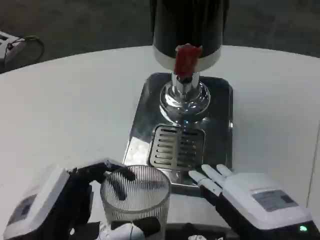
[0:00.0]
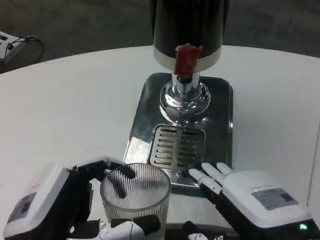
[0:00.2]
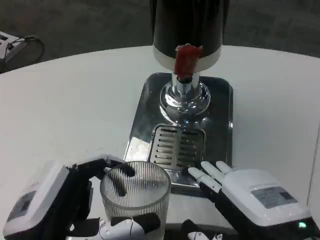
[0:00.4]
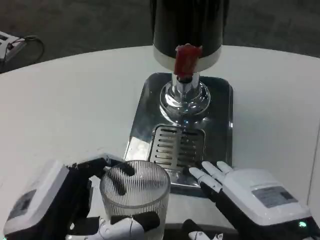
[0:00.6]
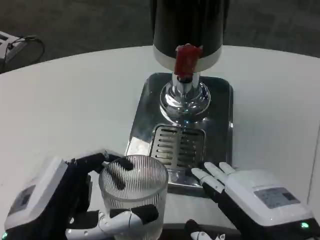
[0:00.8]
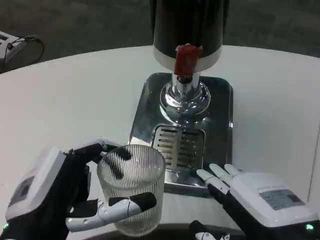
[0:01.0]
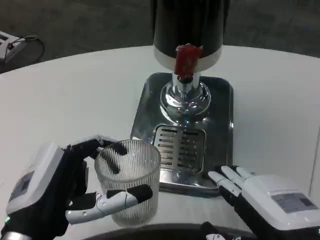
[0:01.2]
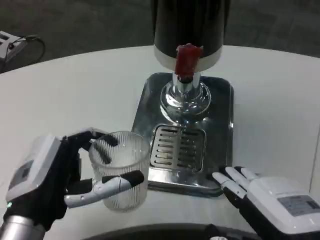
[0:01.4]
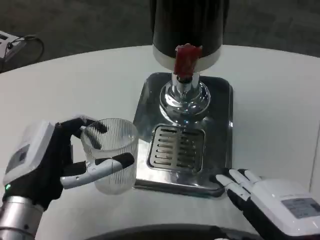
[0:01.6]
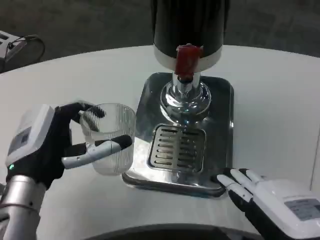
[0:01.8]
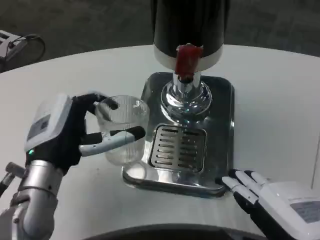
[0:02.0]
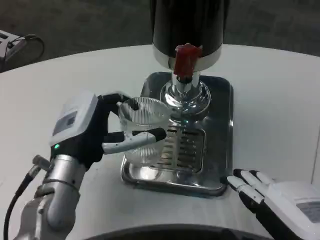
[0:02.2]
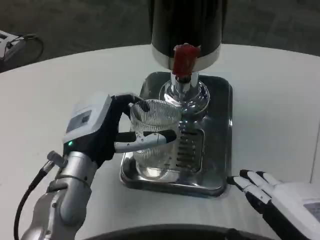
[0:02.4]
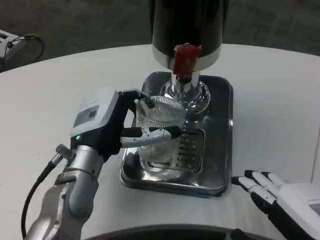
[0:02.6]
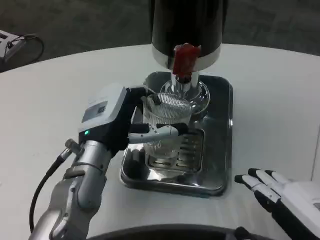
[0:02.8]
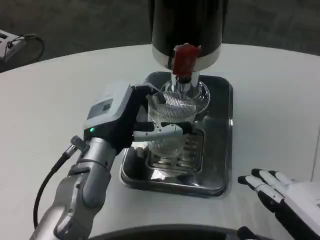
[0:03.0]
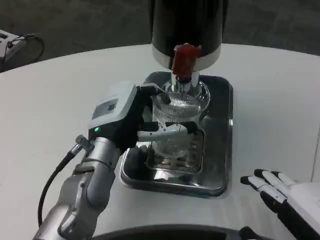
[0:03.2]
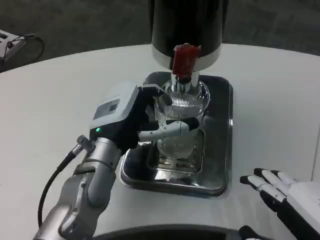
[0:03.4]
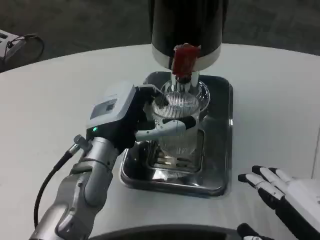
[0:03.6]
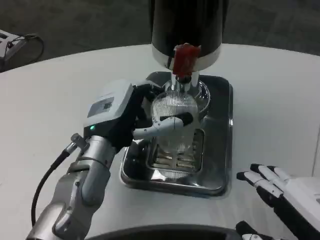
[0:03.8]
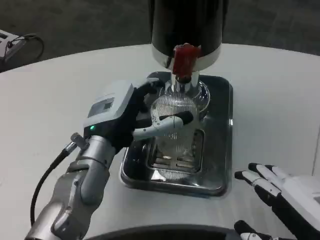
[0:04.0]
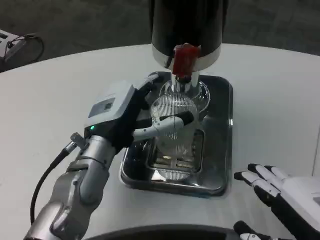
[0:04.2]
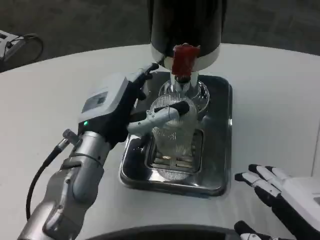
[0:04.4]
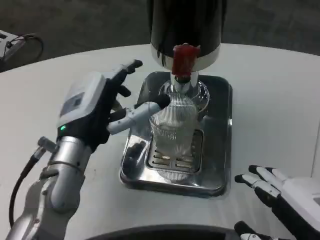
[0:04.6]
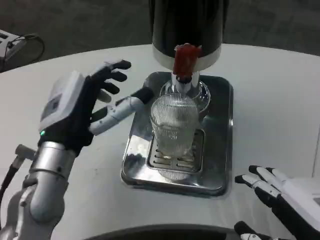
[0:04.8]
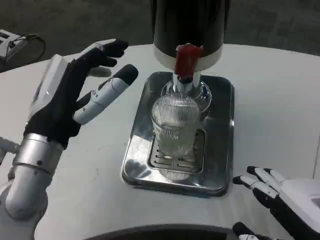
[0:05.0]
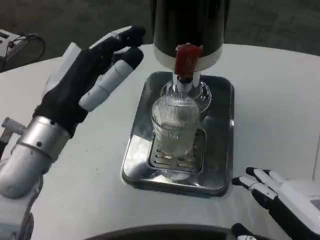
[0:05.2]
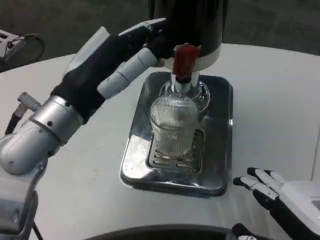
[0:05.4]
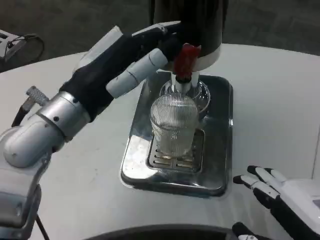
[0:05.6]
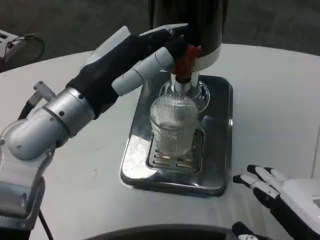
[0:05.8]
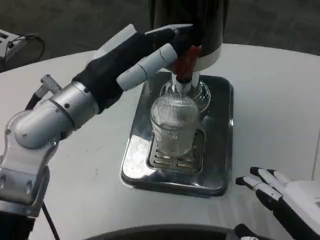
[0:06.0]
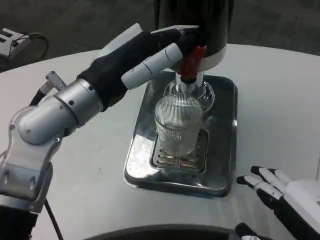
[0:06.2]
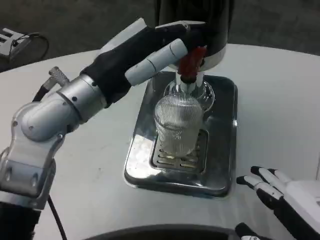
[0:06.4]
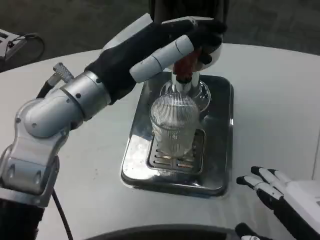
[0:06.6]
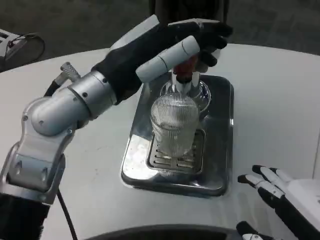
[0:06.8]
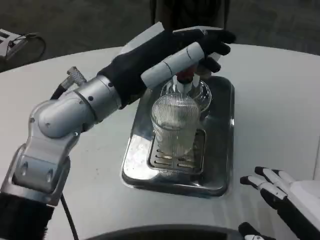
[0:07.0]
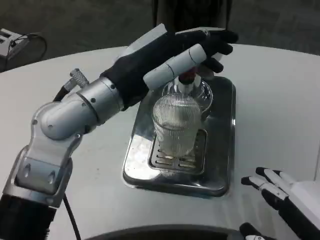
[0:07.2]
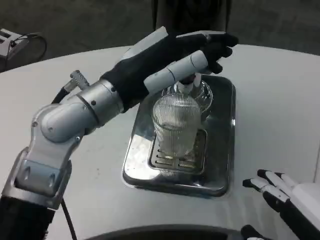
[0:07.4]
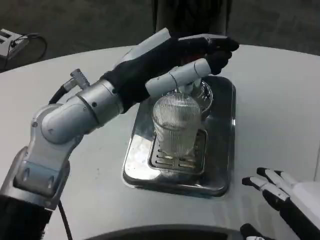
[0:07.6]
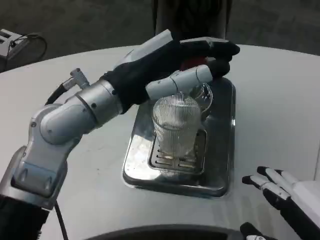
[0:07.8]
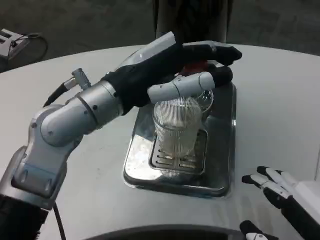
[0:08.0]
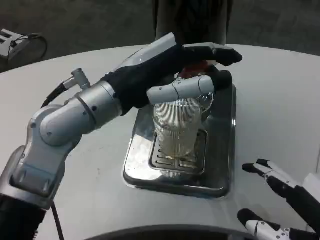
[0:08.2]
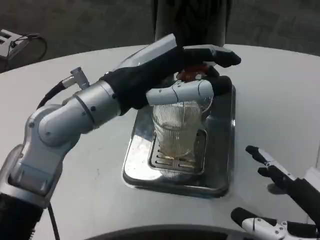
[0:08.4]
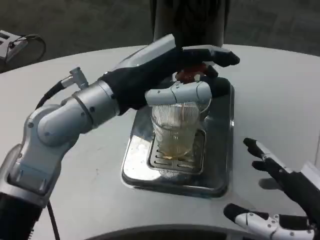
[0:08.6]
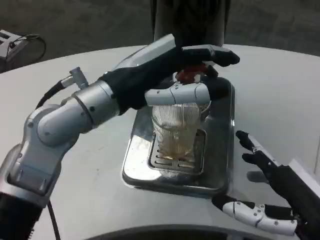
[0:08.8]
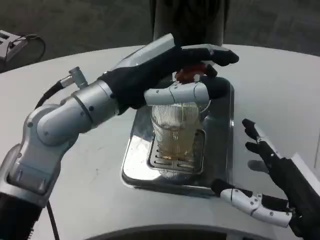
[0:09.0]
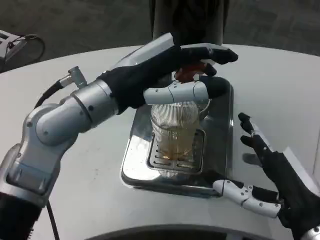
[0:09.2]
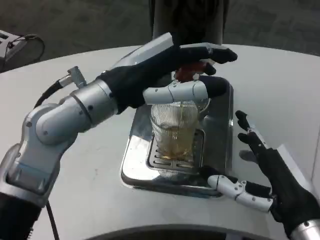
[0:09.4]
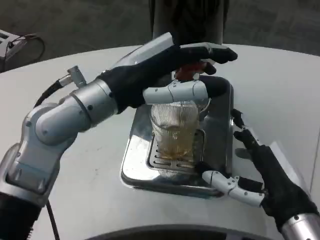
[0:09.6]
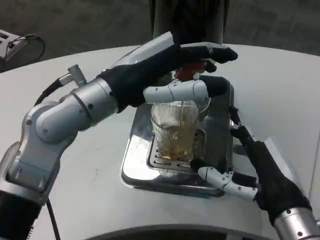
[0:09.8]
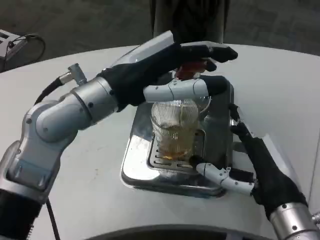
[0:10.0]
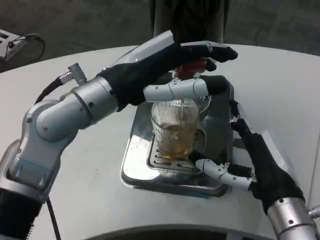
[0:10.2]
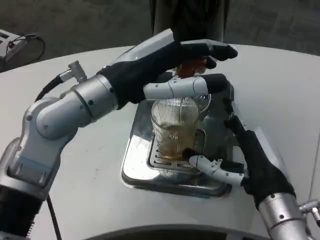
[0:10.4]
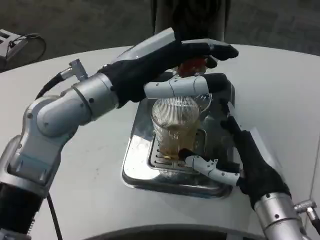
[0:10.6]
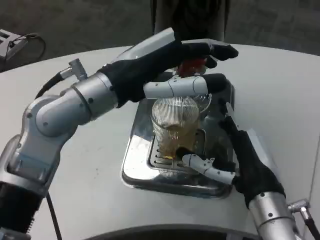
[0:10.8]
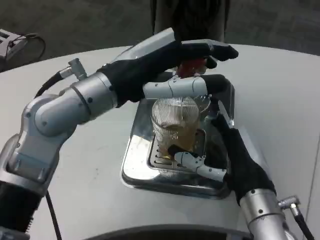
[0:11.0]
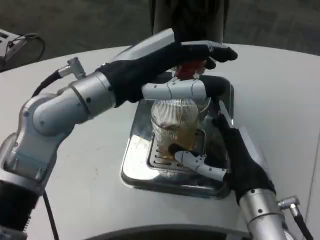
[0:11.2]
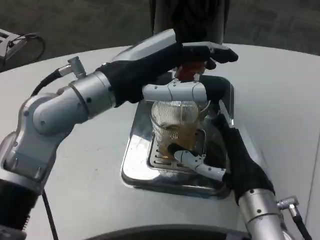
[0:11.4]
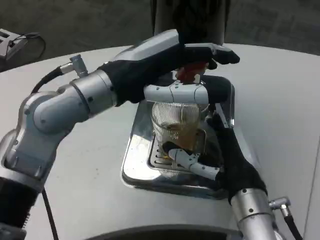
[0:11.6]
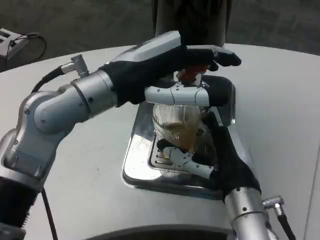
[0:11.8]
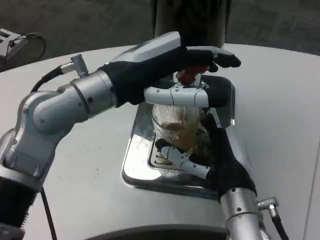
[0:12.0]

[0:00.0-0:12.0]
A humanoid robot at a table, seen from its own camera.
Task of the whole recording: Grasp the cup under the faucet to collect the drink, then remove the cup.
0:00.0 to 0:01.6: The left hand shifts some 10 cm forward.
0:01.6 to 0:03.0: The left hand heads forward and to the right, covering roughly 10 cm.
0:03.0 to 0:04.4: There are only small adjustments of the hands.
0:04.4 to 0:06.0: The left hand moves upward, roughly 10 cm.
0:07.6 to 0:09.0: The right hand is displaced forward by about 5 cm.
0:09.0 to 0:10.4: The right hand shifts roughly 5 cm forward.
0:10.4 to 0:12.0: The right hand travels to the left by some 5 cm.

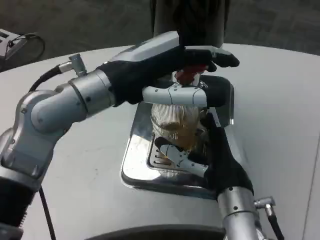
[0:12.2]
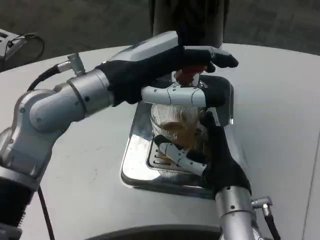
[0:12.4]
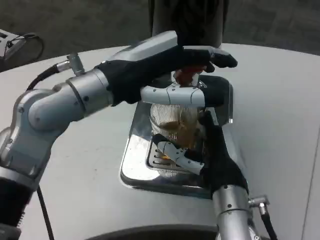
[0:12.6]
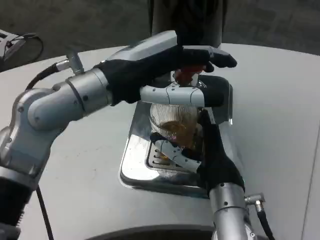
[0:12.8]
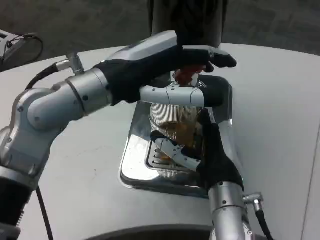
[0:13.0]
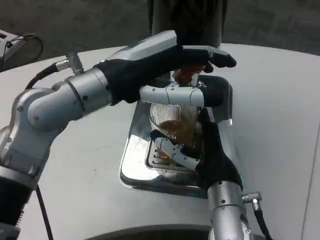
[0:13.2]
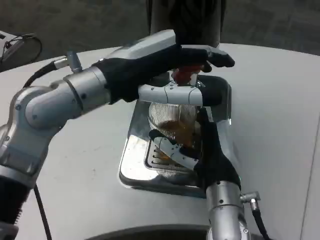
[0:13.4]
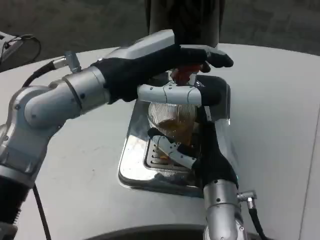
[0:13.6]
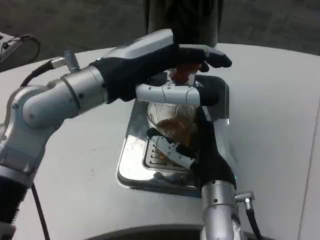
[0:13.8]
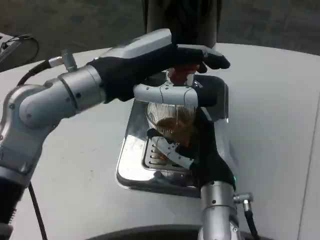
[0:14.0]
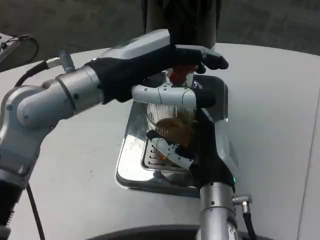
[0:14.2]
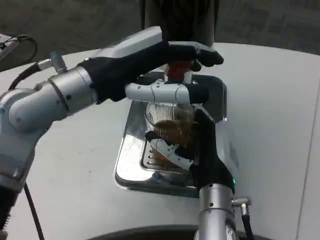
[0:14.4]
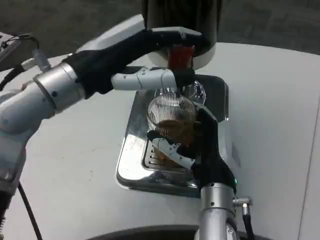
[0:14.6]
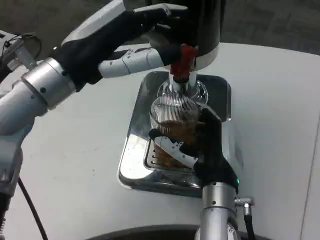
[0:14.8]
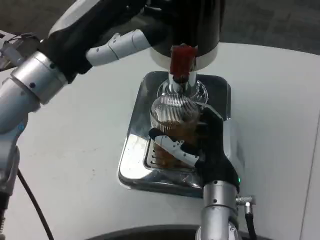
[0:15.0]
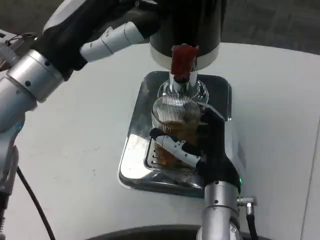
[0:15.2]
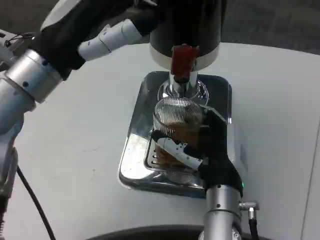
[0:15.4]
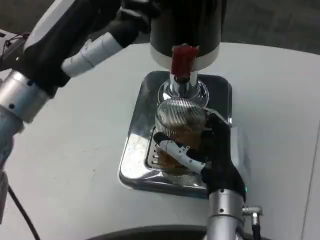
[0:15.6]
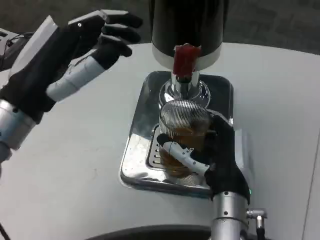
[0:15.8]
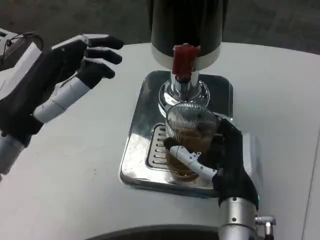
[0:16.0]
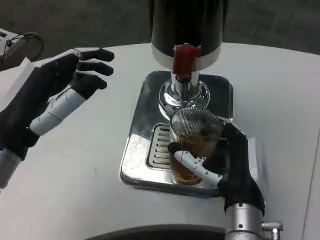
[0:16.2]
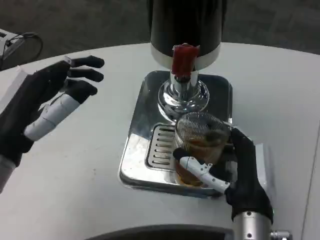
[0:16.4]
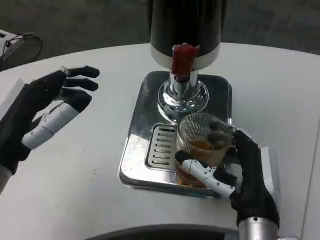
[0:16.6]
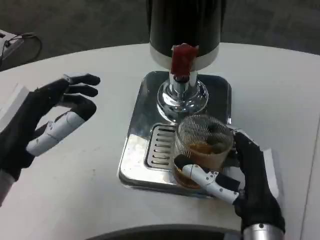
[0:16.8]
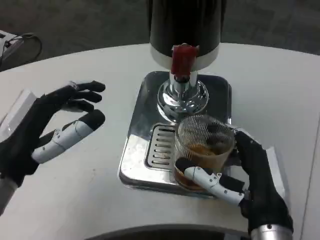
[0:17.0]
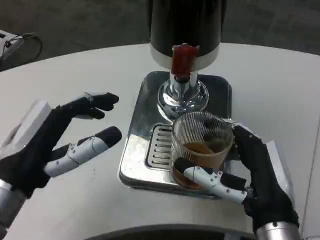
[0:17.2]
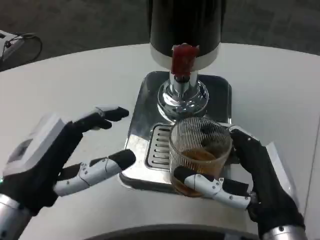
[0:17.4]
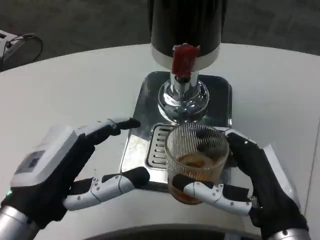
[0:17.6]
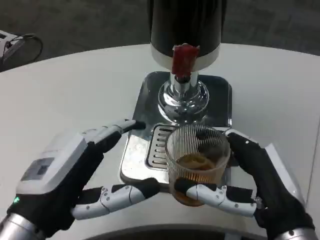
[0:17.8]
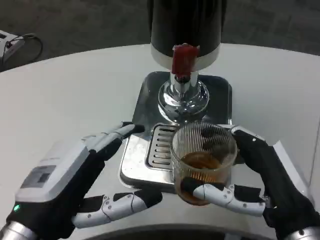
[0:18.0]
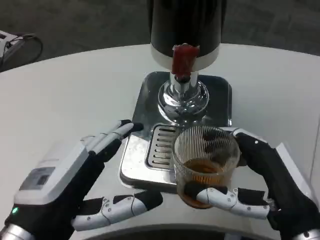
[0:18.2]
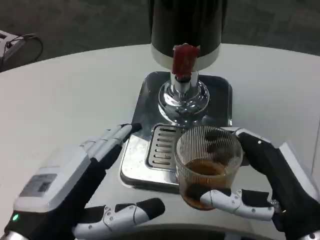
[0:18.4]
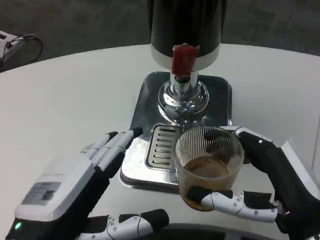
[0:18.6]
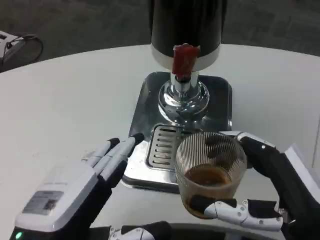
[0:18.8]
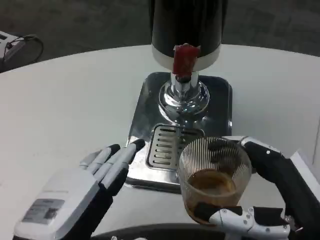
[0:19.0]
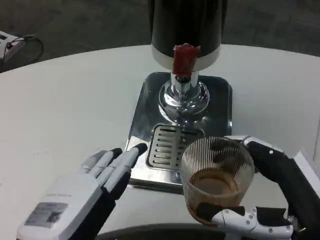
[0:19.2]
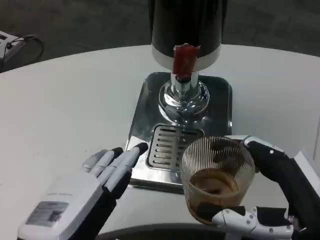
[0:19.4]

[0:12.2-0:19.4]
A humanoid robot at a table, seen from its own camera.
Task of the whole recording: Grasp the cup under the faucet to collect the drink, then remove the cup.
0:15.0 to 0:16.6: The left hand moves downward and backward, approximately 10 cm. Meanwhile the right hand travels backward by some 5 cm.
0:16.6 to 0:18.0: The right hand moves to the right, about 5 cm. Meanwhile the left hand moves backward, about 5 cm.

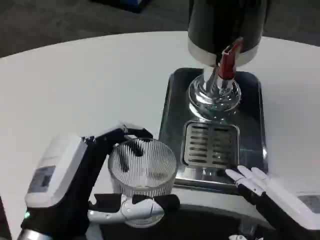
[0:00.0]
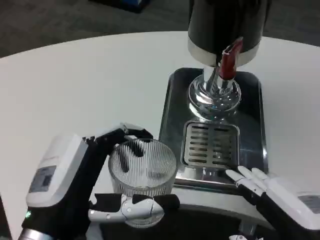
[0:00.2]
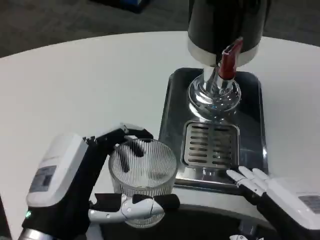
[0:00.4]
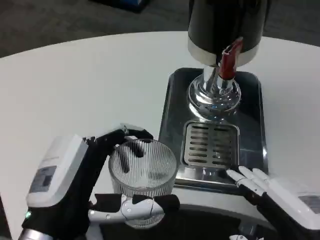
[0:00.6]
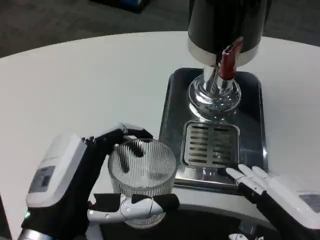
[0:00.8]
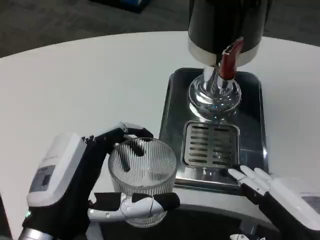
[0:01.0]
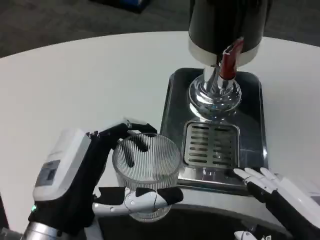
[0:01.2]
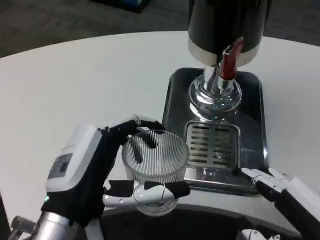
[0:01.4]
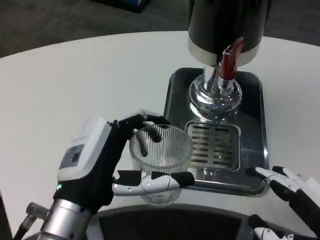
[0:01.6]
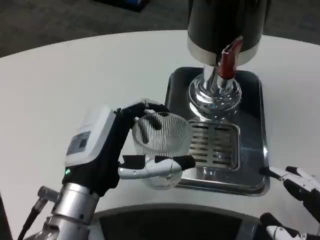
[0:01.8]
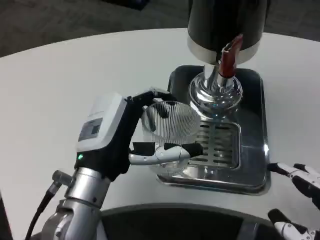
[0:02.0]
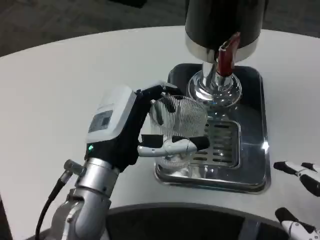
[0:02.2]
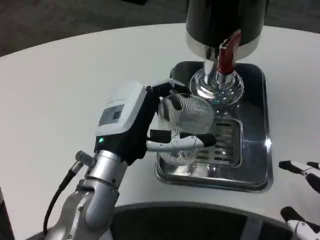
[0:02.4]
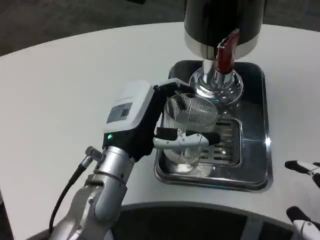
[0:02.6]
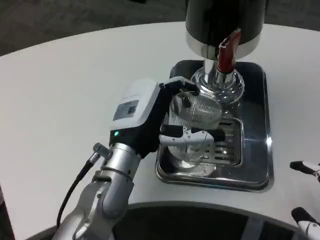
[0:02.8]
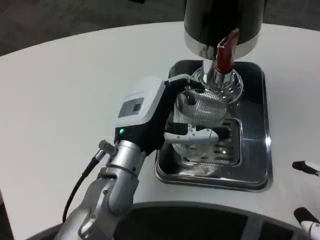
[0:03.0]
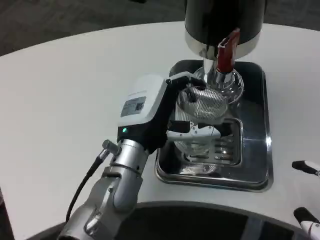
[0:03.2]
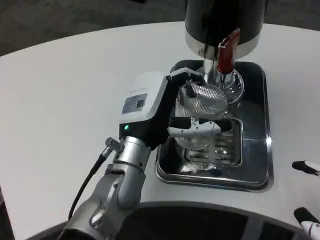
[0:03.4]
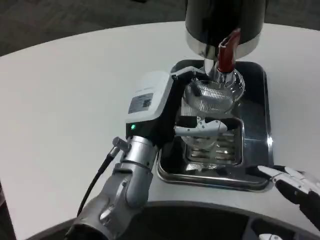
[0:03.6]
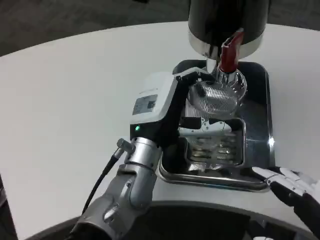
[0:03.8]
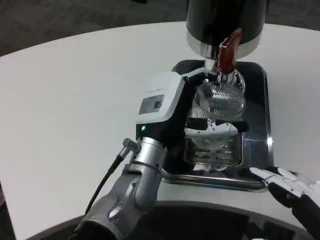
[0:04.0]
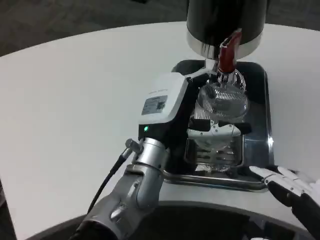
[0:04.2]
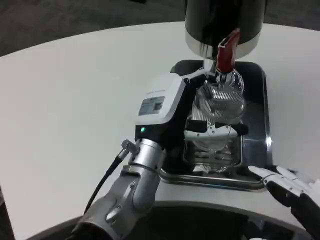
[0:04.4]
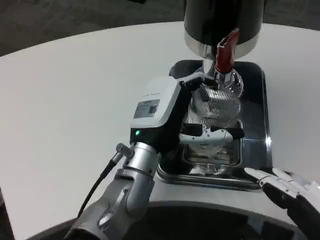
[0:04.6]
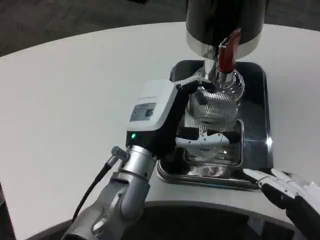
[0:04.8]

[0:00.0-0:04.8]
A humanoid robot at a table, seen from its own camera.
Task of the whole recording: Grasp the cup under the faucet to collect the drink, then remove the cup.
0:00.0 to 0:01.6: The left hand moves roughly 5 cm.
0:01.6 to 0:03.2: The left hand goes roughly 10 cm forward and to the right.
0:03.2 to 0:04.8: The hands stay close to where they were, moving slightly.
